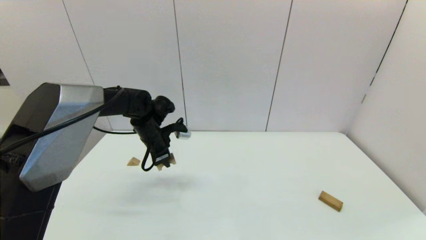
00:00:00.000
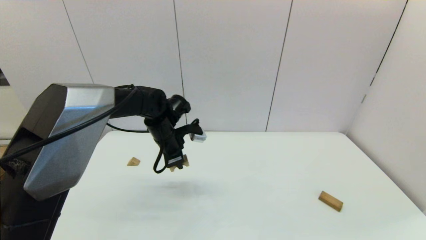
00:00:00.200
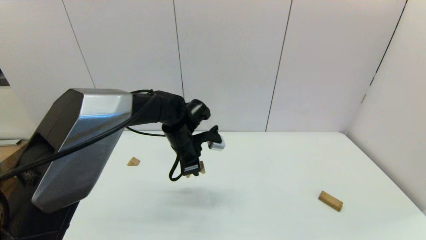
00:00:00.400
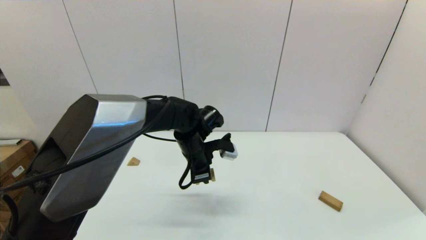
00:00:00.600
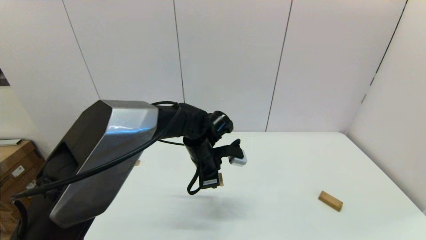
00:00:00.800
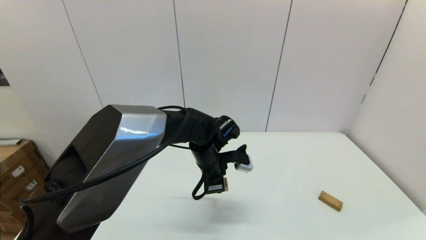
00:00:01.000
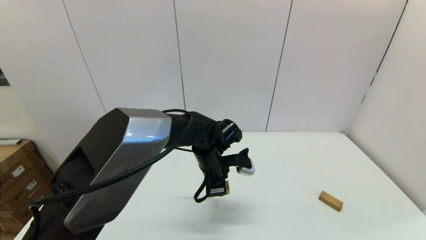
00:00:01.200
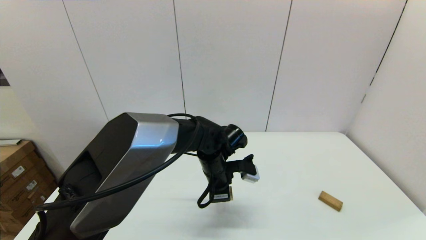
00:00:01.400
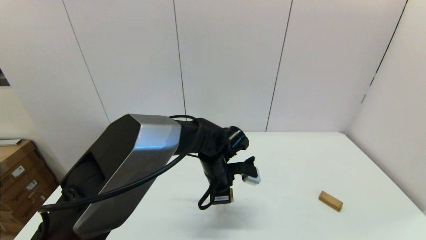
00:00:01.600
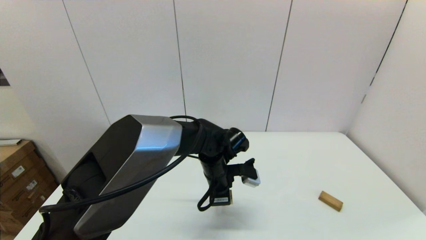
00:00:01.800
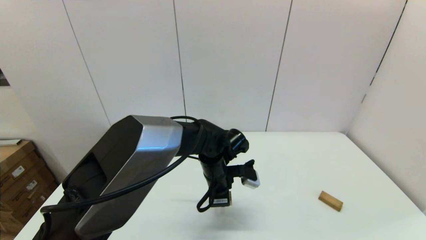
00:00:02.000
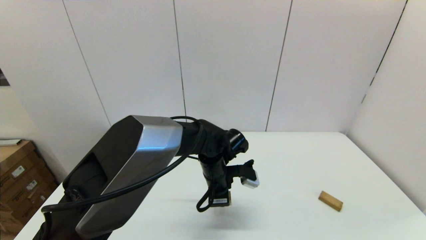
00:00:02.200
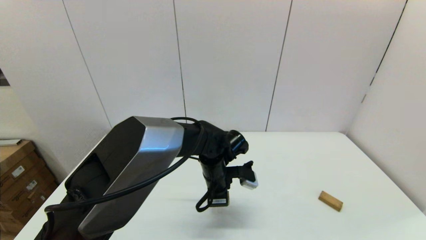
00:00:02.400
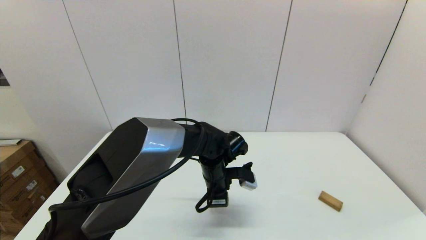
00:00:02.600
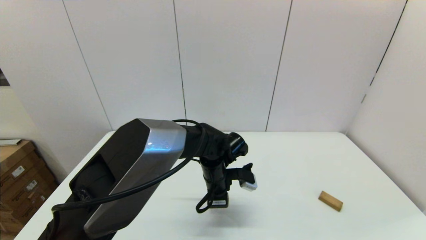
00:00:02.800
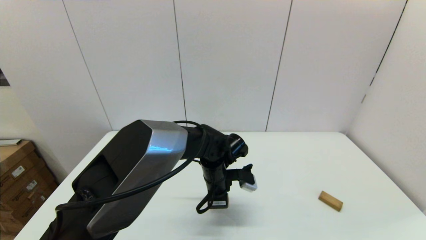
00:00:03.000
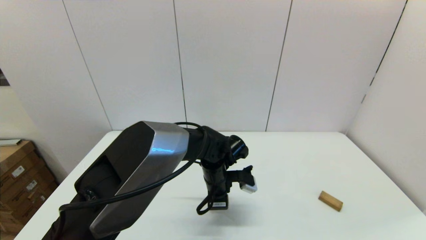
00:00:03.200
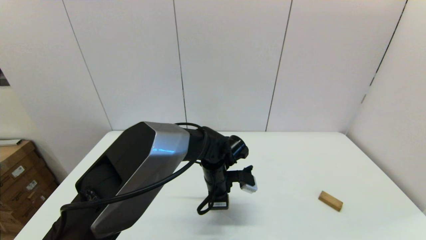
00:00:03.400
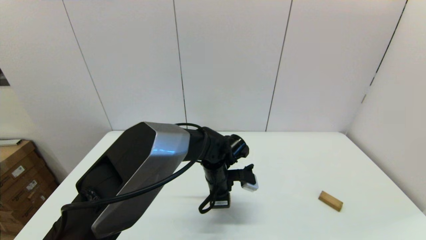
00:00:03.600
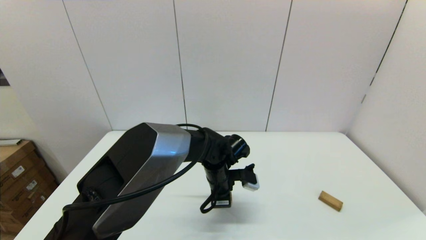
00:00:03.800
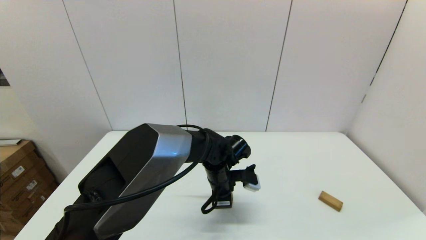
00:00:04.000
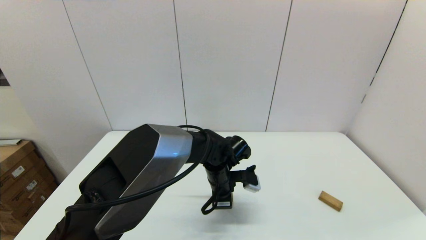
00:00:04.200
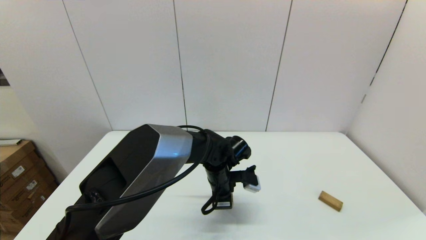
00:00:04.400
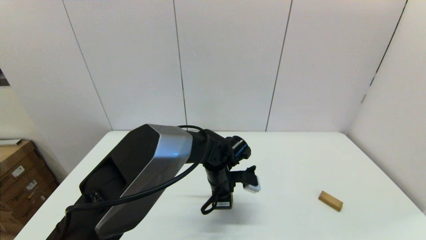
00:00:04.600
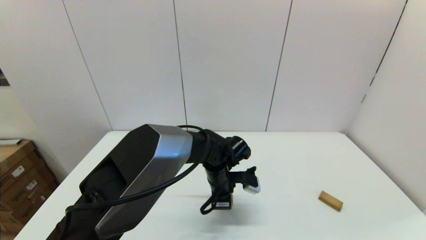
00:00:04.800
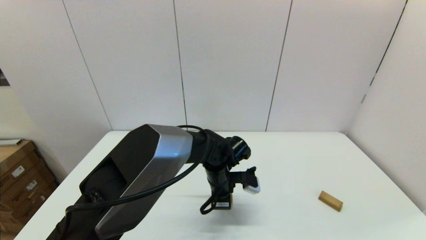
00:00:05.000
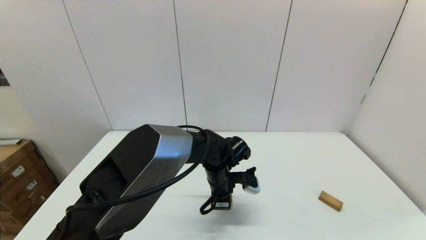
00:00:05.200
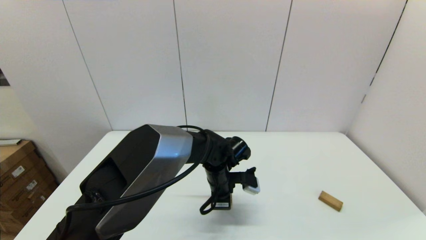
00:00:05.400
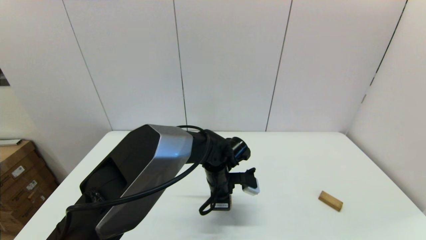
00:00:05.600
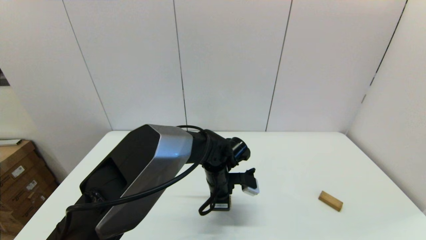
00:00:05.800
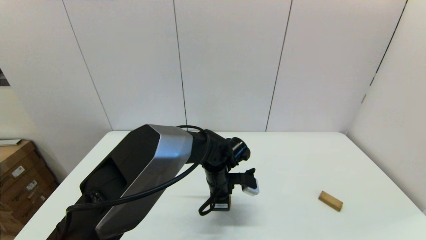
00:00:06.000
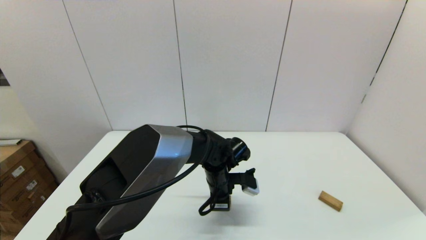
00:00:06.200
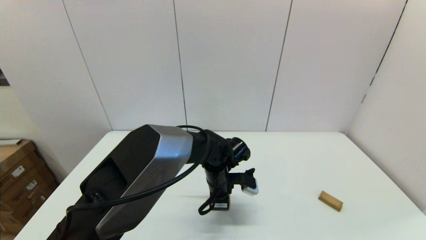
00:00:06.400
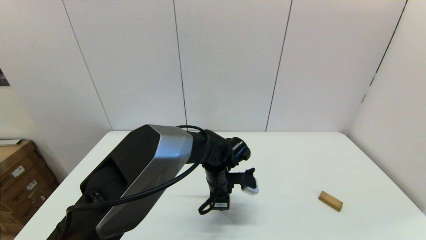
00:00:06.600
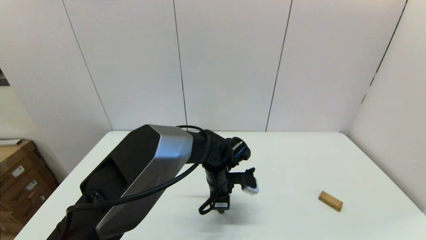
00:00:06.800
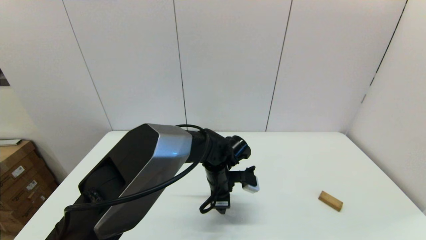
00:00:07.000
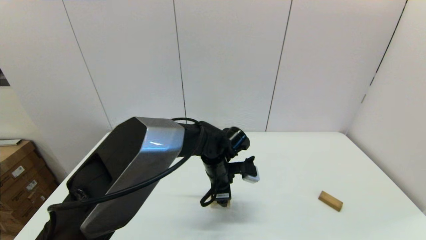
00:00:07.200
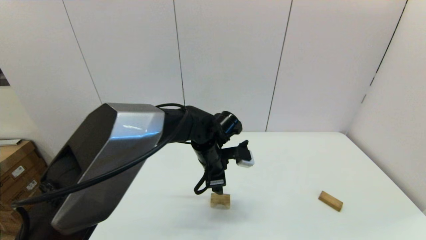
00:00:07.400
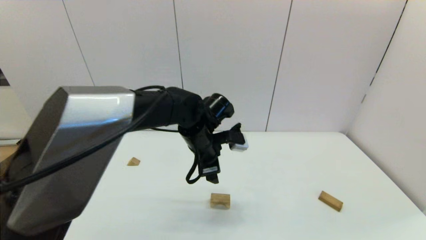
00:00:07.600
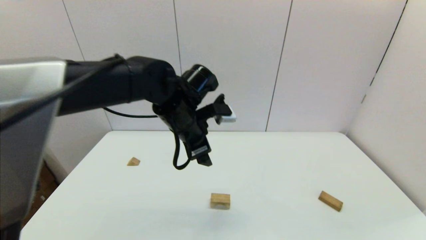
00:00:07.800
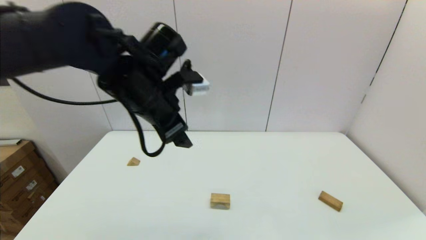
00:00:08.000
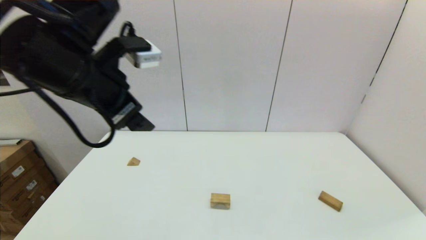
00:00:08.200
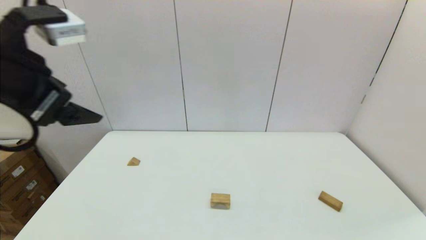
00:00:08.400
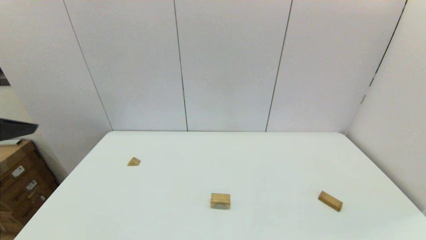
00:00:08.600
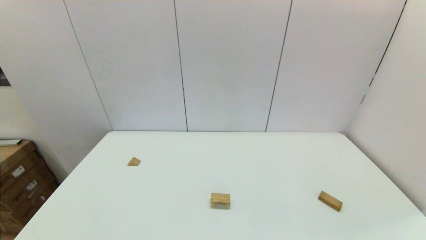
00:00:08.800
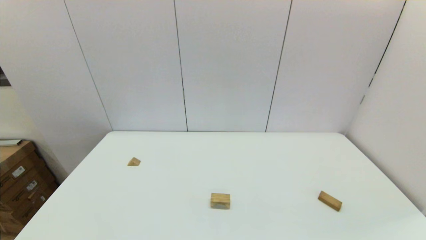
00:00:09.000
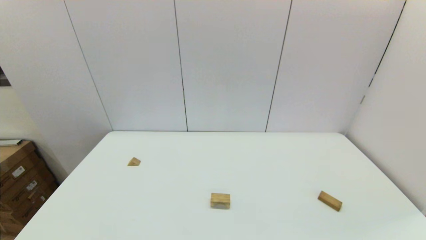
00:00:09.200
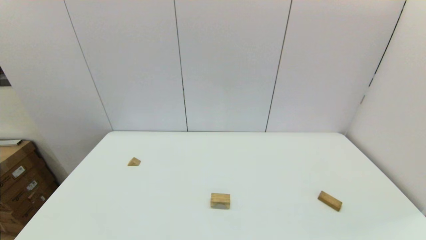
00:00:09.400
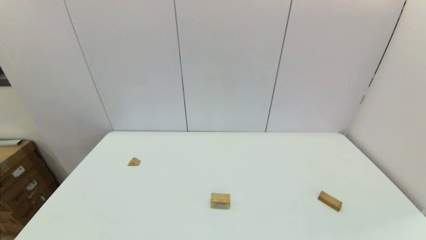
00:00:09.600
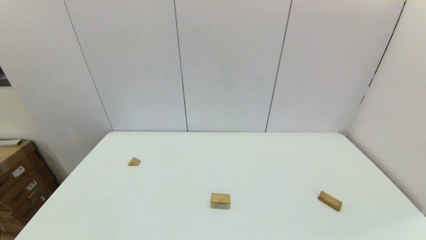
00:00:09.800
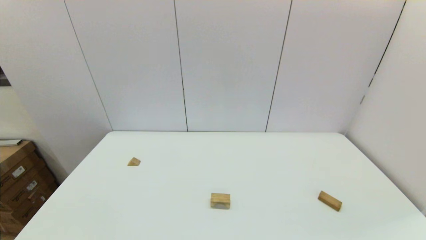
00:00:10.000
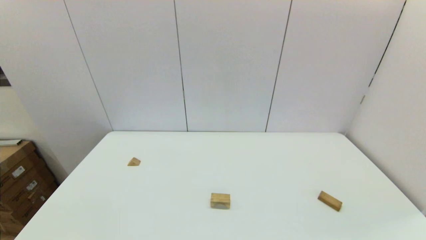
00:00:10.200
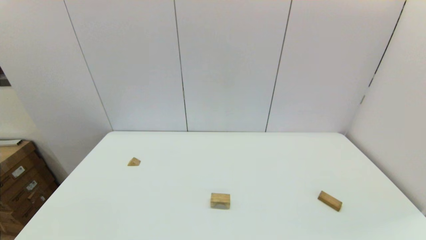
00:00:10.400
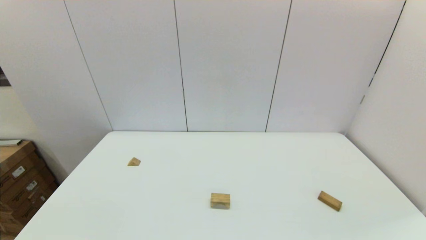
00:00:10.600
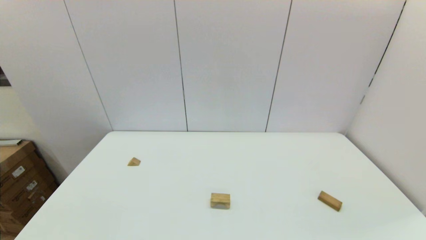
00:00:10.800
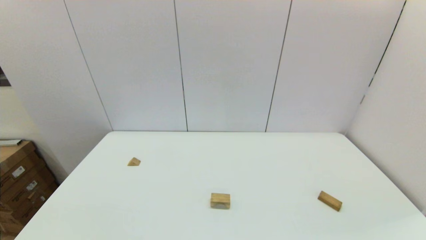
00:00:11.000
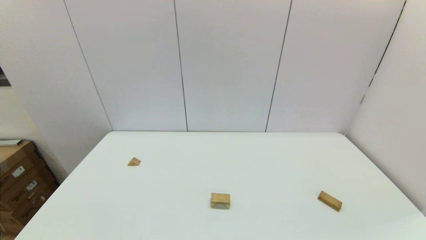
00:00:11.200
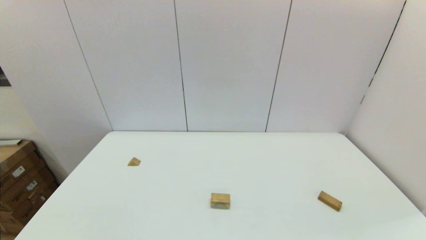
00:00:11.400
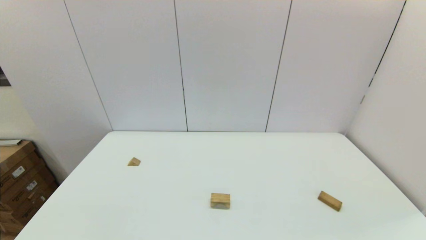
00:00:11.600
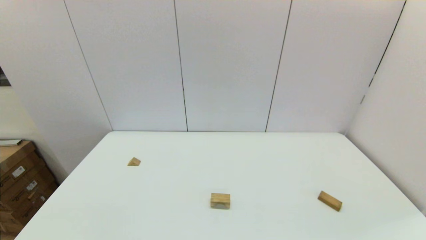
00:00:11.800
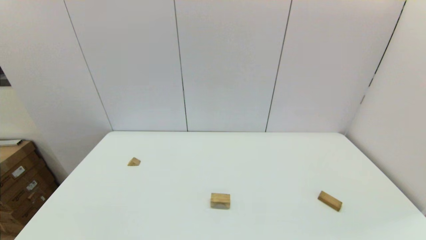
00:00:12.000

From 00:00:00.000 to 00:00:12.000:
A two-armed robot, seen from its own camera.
Task of the whole recording: place the arched building blocks in the center of the table, set up the rectangular building blocks, and then set up the triangular building blocks.
Step, from 00:00:00.000 to 00:00:06.800: Place the arch-shaped block in the center of view with the left gripper.
From 00:00:00.000 to 00:00:01.600: The left gripper goes roughly 20 cm to the right and backward.
From 00:00:01.600 to 00:00:04.400: The grippers stay close to where they were, moving slightly.
From 00:00:04.400 to 00:00:06.000: Both grippers stay about where they are.
From 00:00:06.000 to 00:00:07.600: The left gripper travels upward by approximately 10 cm, and opens up.
From 00:00:07.600 to 00:00:09.000: The left gripper shifts about 50 cm backward, to the left and upward.

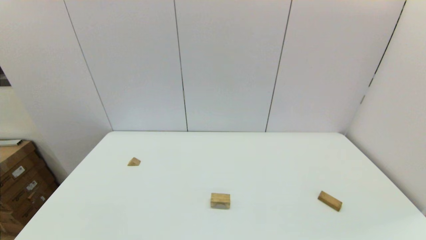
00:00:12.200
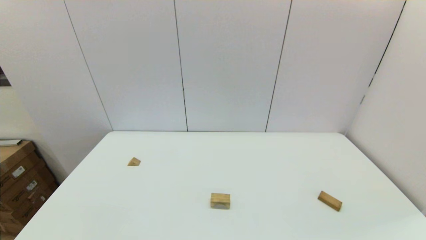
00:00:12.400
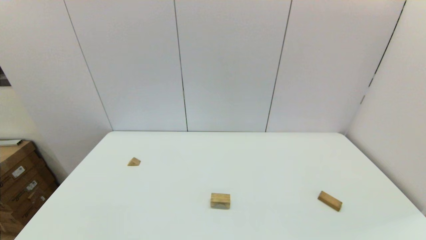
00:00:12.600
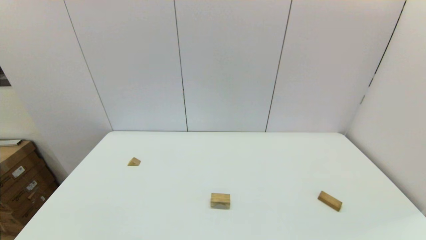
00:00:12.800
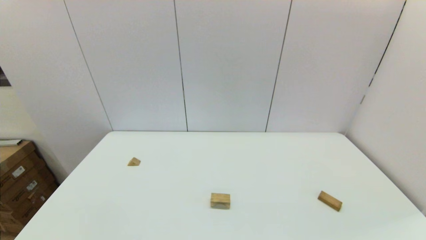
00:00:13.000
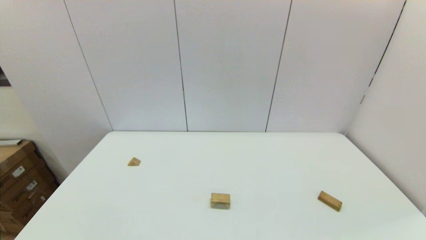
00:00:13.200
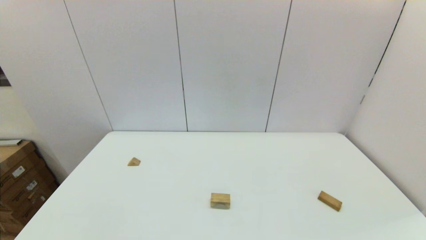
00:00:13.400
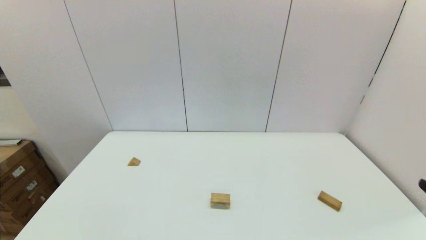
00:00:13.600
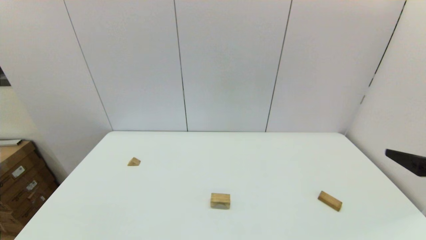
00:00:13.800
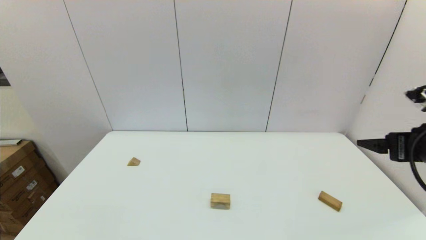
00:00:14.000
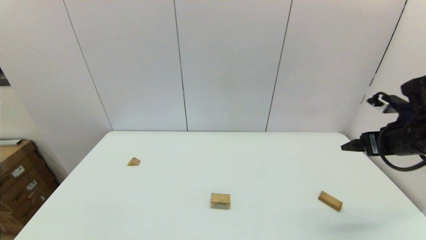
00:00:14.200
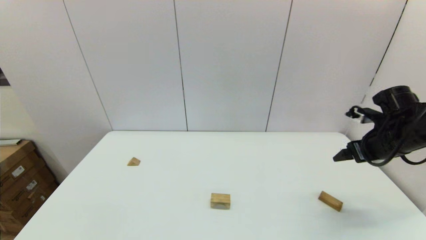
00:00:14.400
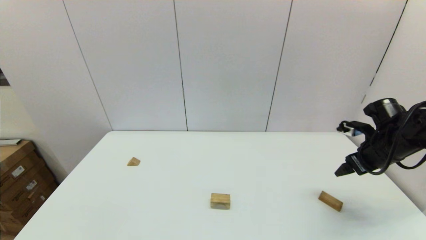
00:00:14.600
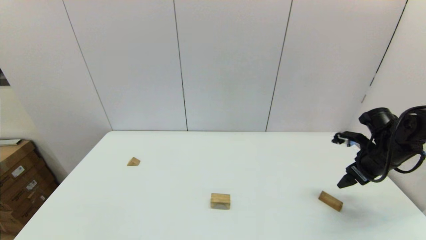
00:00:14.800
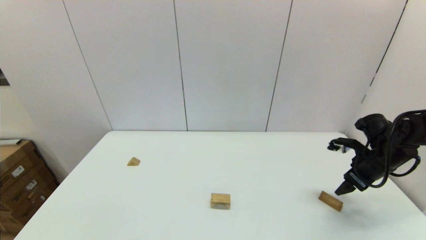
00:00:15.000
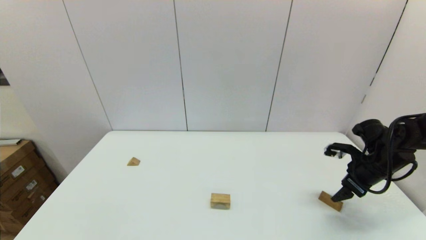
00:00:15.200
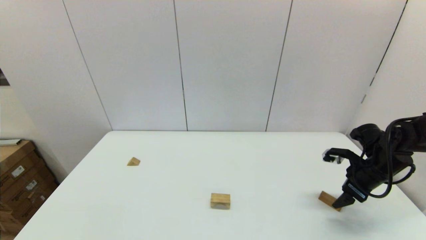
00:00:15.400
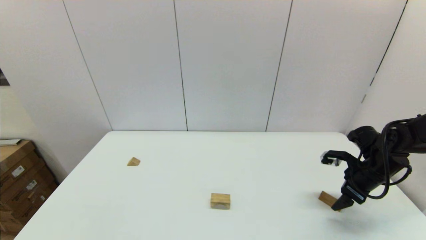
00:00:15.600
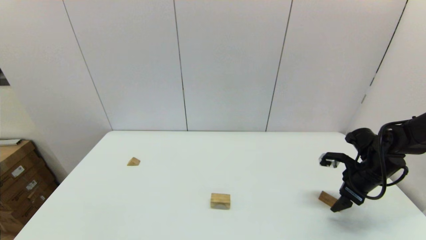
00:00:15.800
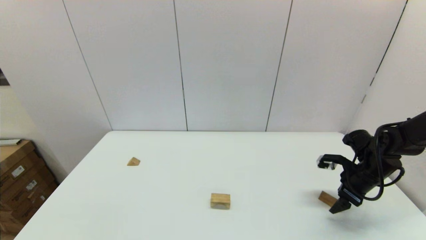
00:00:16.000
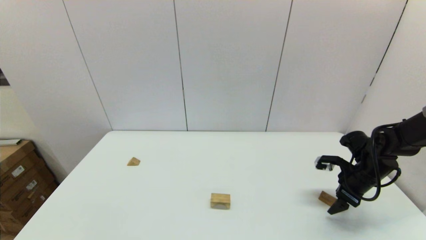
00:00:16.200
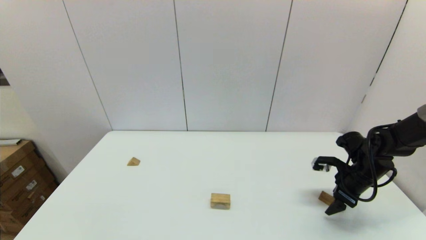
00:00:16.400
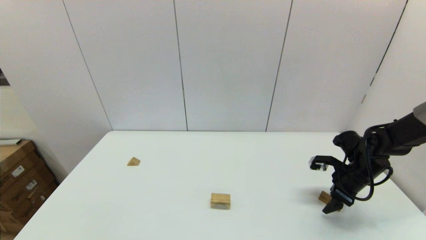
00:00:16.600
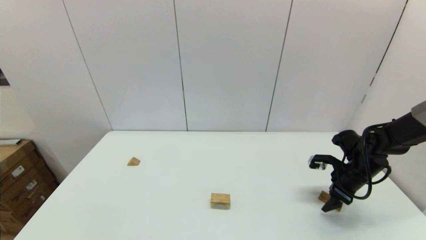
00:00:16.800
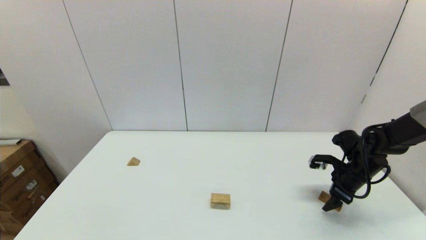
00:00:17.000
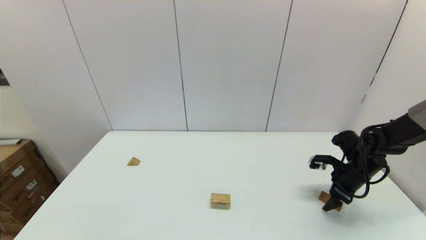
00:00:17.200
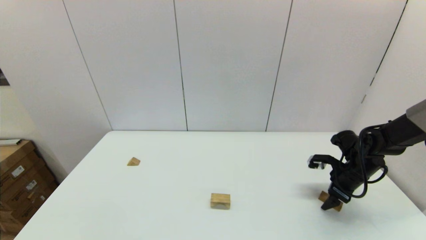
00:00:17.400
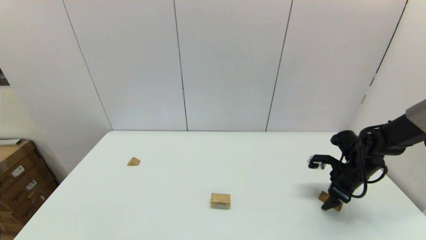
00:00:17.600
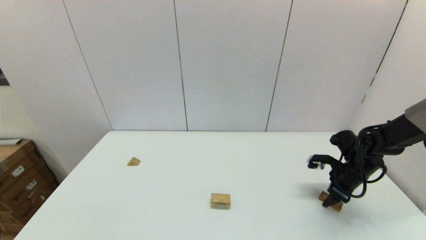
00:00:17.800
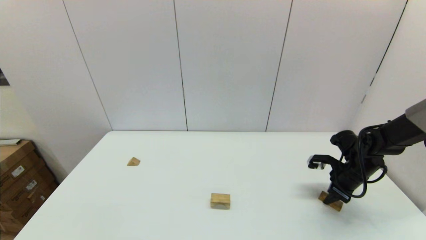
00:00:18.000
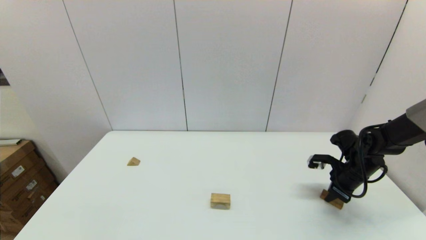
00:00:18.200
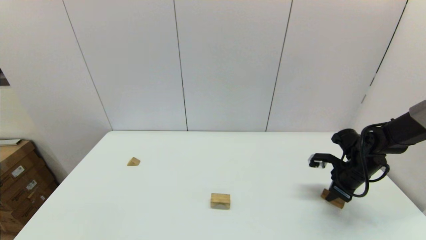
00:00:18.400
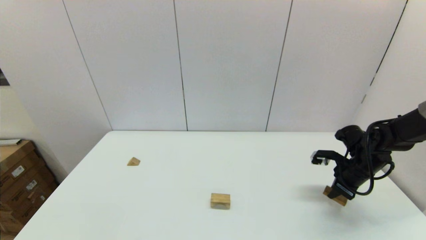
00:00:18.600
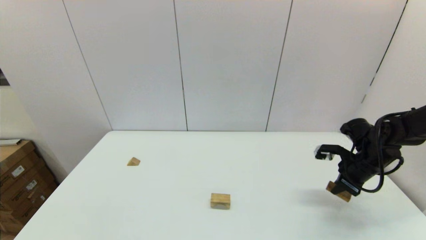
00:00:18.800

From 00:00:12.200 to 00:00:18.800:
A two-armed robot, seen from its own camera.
Task of the whole recording: place the arched building blocks in the center of the table, set up the rectangular building blocks, and then set up the triangular building blocks.
Step, from 00:00:12.200 to 00:00:18.200: Grasp the box-shaped block with the right gripper.
From 00:00:12.200 to 00:00:13.800: The right gripper moves forward and upward, about 20 cm.
From 00:00:13.800 to 00:00:15.400: The right gripper moves forward and downward, some 25 cm.
From 00:00:15.400 to 00:00:17.200: The right gripper changes place by approximately 5 cm.
From 00:00:17.200 to 00:00:18.800: The right gripper closes its fingers.
